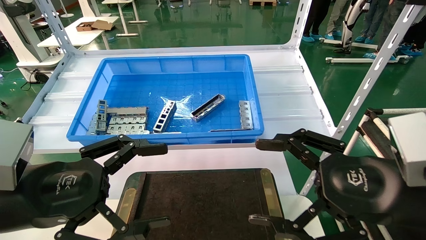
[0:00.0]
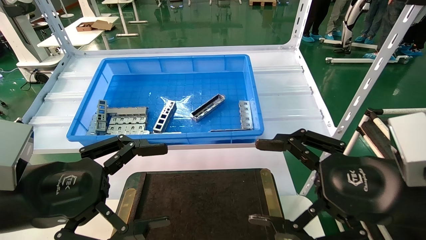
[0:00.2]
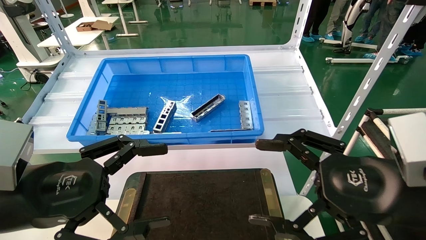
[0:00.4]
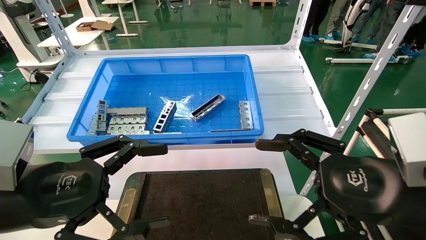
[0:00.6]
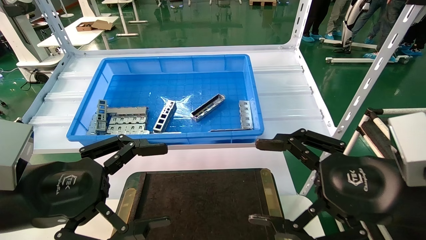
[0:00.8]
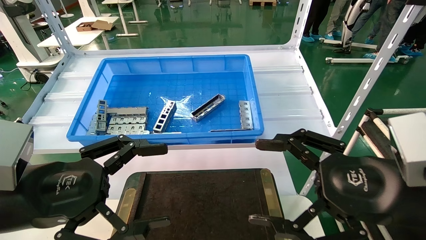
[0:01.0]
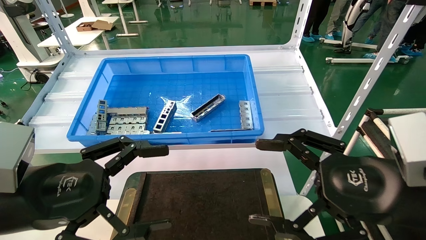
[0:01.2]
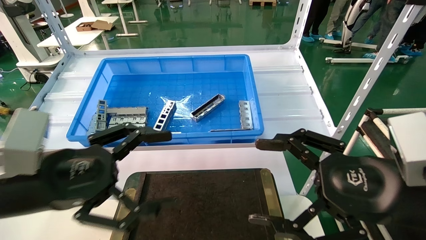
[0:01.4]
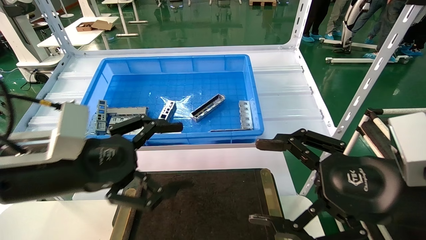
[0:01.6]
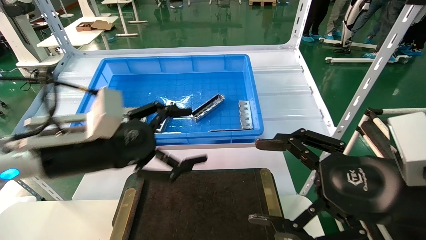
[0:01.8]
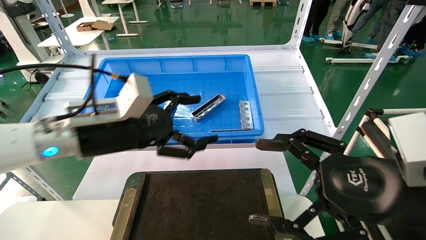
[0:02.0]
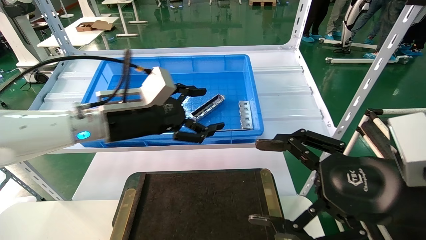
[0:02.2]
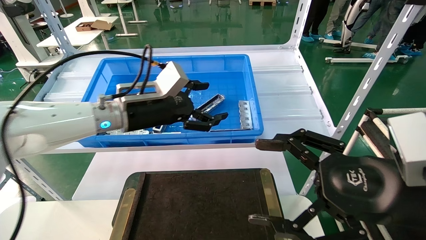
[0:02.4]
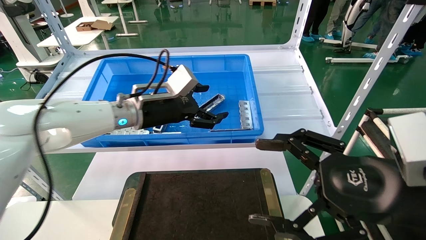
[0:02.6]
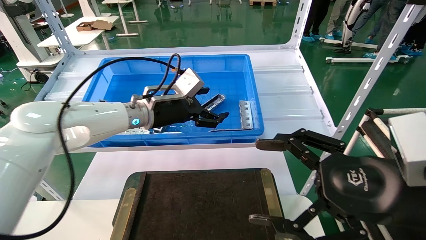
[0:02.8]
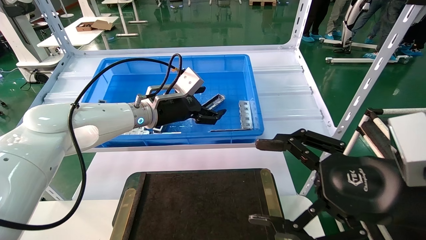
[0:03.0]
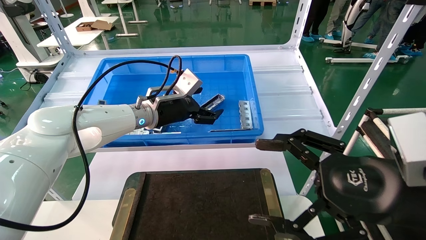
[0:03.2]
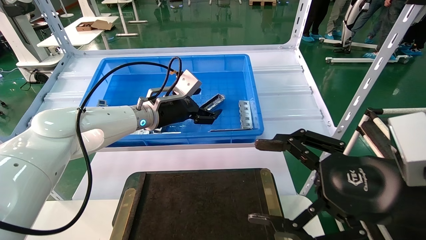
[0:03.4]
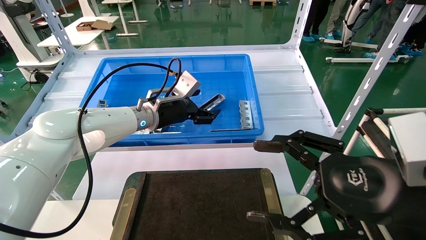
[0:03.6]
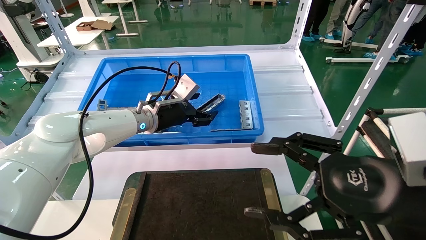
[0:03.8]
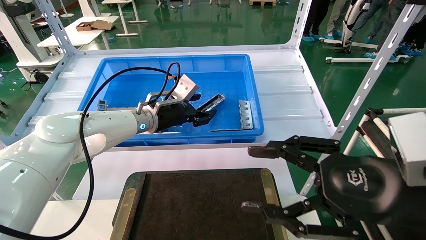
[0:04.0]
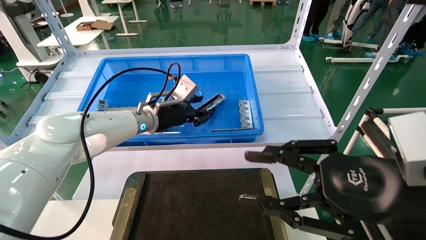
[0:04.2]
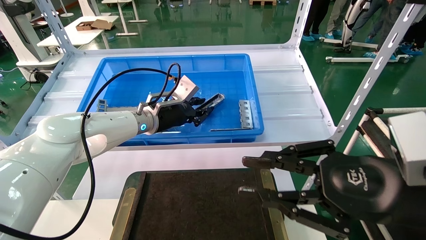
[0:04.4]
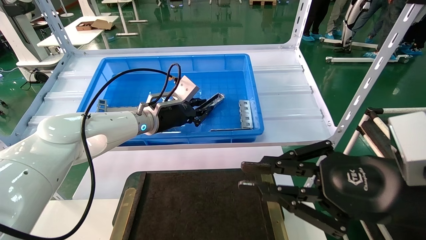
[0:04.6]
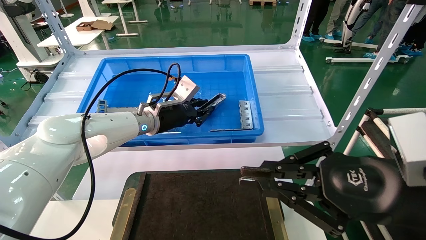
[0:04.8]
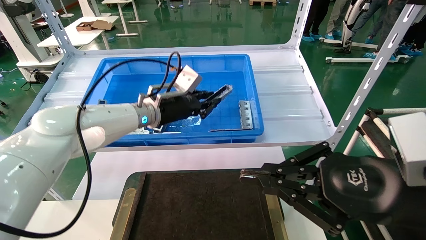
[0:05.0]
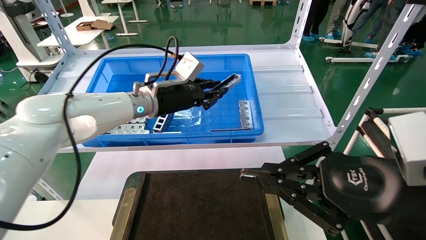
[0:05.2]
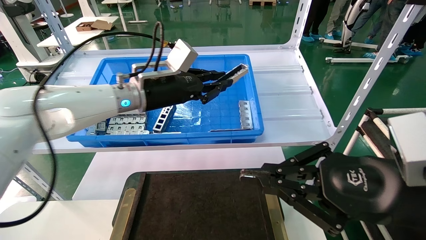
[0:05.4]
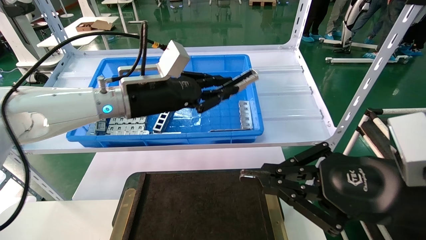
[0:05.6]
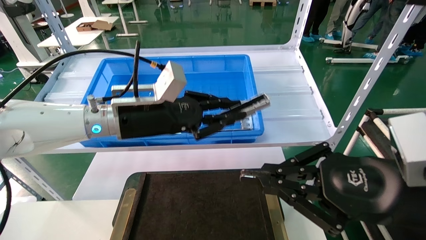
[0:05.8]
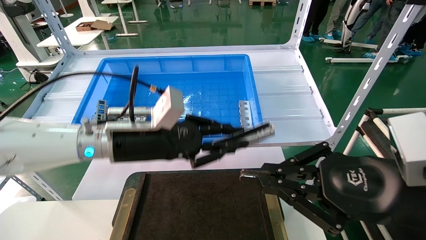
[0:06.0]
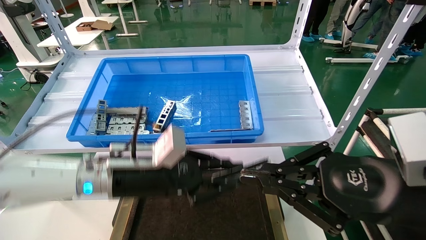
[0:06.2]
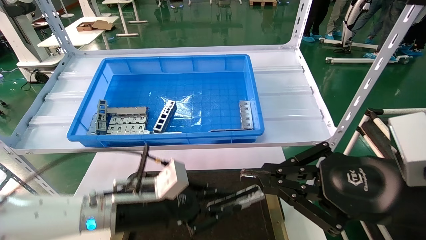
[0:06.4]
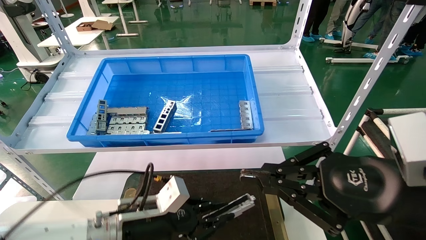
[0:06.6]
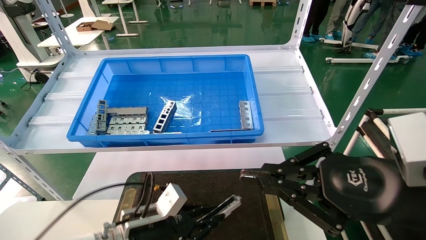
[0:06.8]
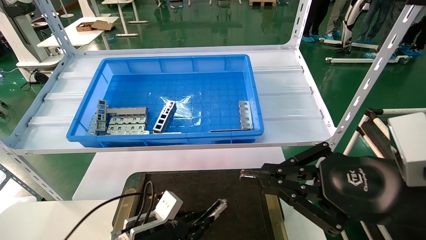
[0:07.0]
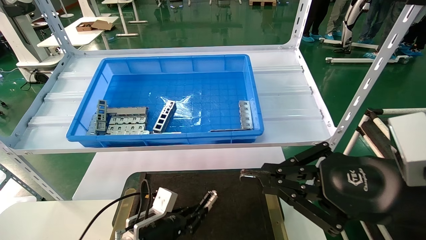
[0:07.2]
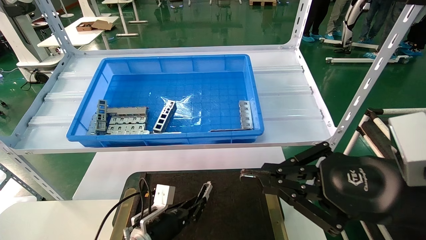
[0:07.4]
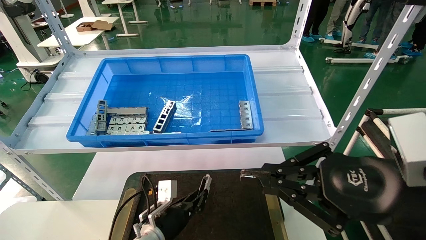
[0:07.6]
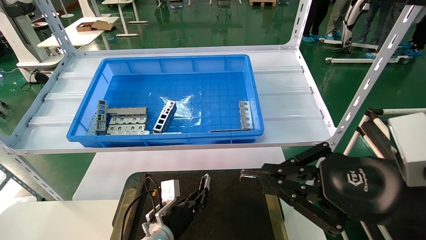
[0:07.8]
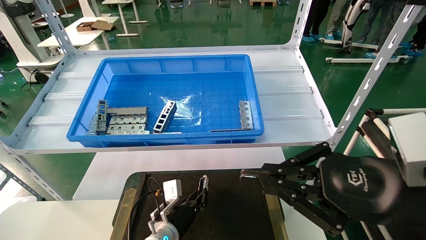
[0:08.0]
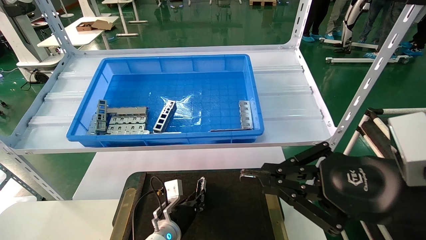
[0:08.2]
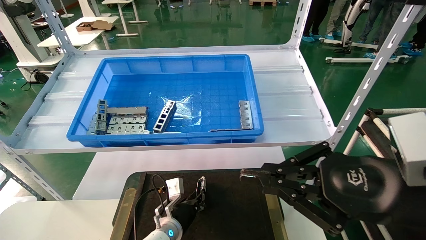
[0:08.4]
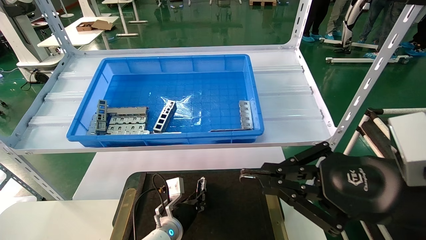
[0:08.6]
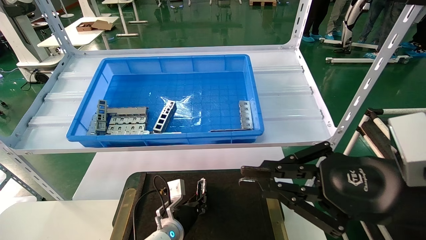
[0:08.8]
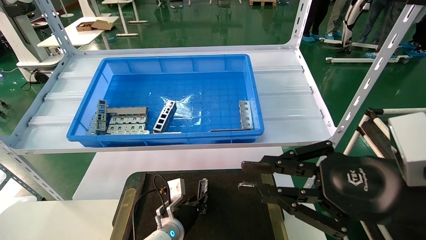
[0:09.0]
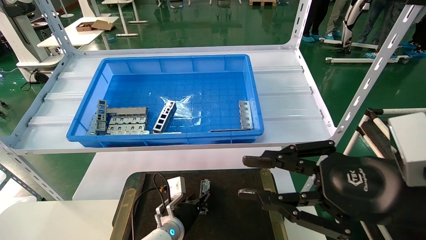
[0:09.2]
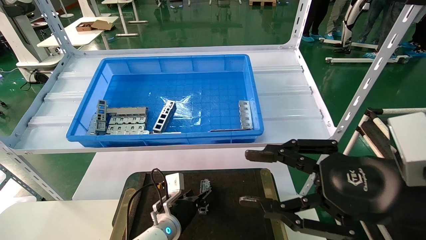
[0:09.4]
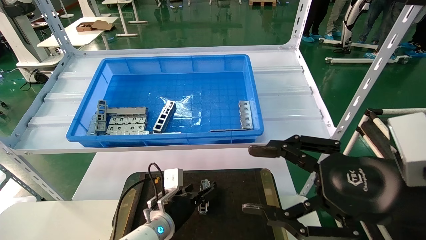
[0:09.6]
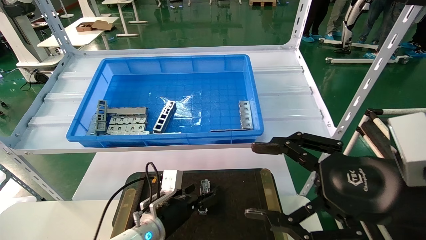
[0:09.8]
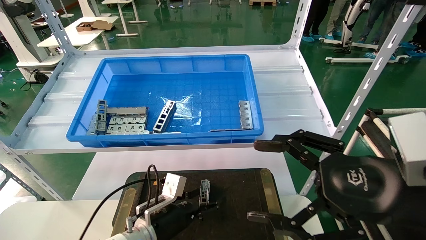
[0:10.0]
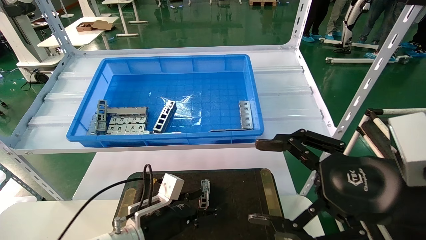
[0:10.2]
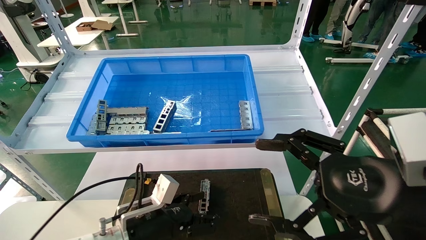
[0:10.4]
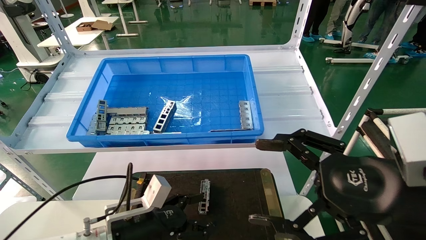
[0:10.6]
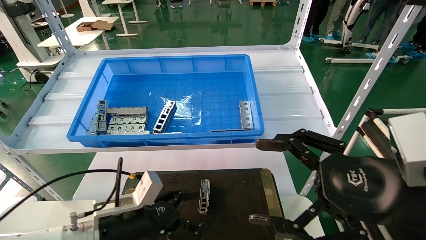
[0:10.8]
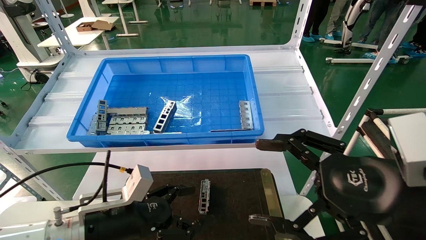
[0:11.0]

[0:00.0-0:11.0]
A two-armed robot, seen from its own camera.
Task of the whole recording: Grasp the part with one hand and place it on the black container.
Step, 1.6 to 5.0 s: Pick up the front USB bracket from the feeding area.
Step, 5.2 to 9.6 s: Place the front USB bracket into the box.
0.0 to 1.6 s: The left gripper travels forward by roughly 5 cm.
1.6 to 3.2 s: The left gripper goes roughly 25 cm forward and to the right.
3.2 to 4.8 s: The right gripper closes. The left gripper closes up.
4.8 to 6.2 s: The left gripper travels backward and downward by roughly 15 cm.
6.2 to 7.8 s: The left gripper is displaced downward by about 20 cm.
7.8 to 9.4 s: The left gripper opens up. The right gripper opens up.
9.4 to 11.0 s: The right gripper opens its fingers. The left gripper shifts some 20 cm backward, upward and to the left, and opens up.

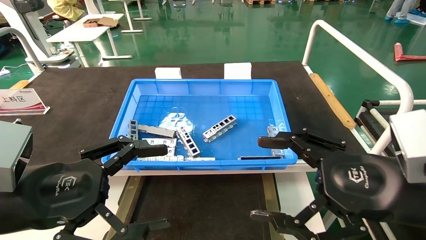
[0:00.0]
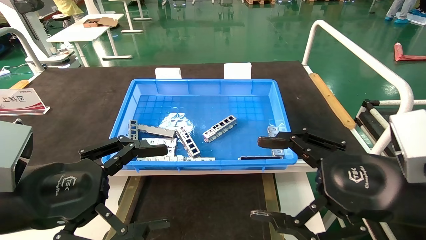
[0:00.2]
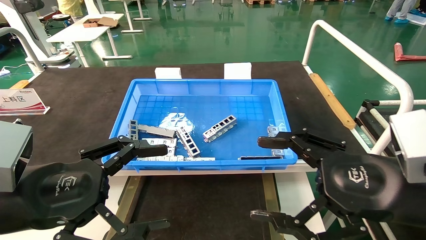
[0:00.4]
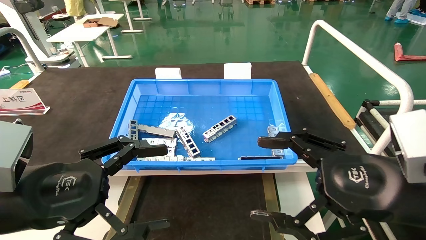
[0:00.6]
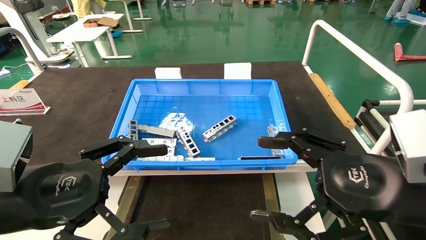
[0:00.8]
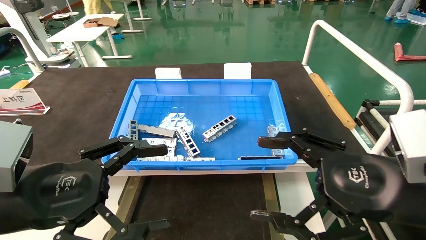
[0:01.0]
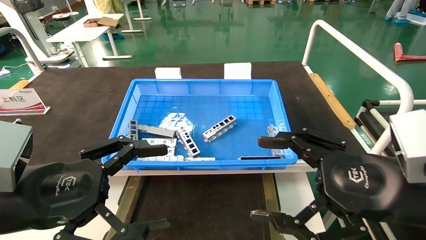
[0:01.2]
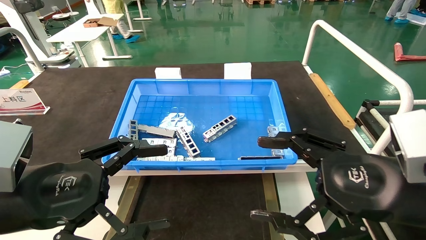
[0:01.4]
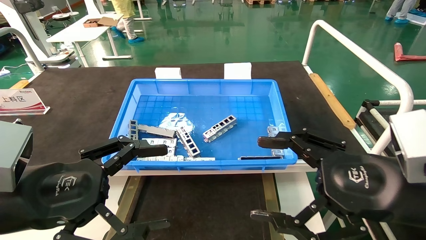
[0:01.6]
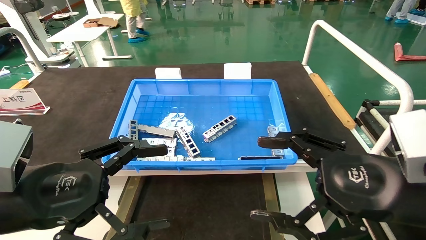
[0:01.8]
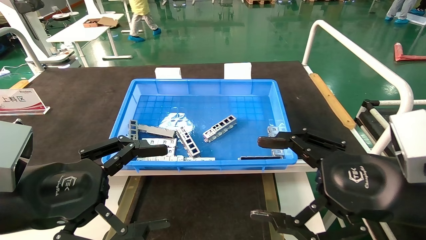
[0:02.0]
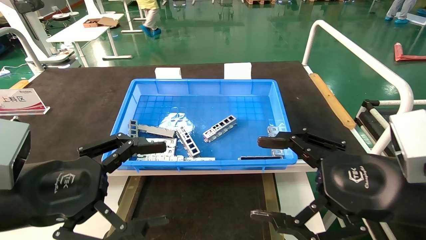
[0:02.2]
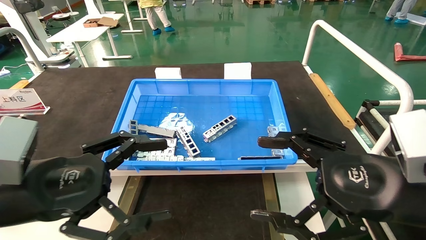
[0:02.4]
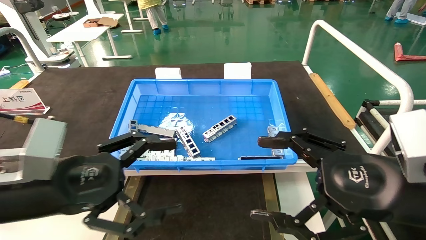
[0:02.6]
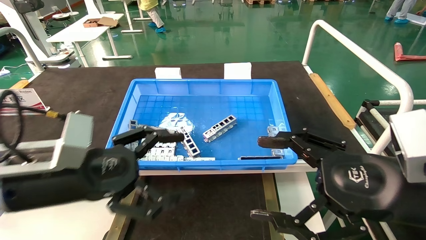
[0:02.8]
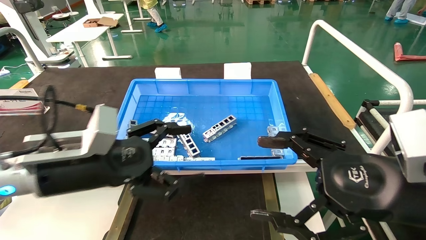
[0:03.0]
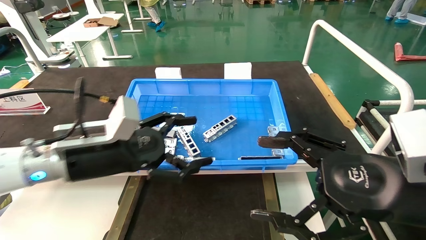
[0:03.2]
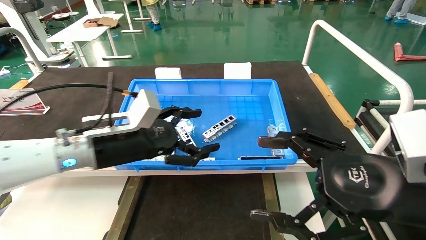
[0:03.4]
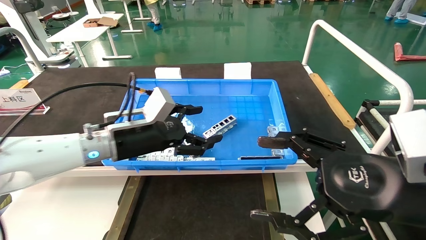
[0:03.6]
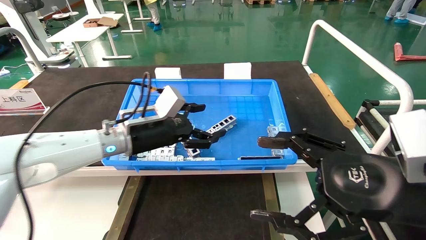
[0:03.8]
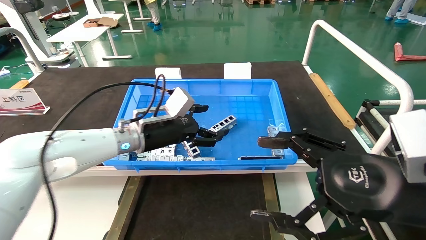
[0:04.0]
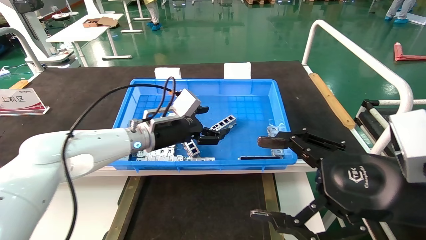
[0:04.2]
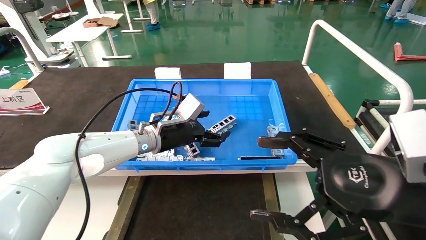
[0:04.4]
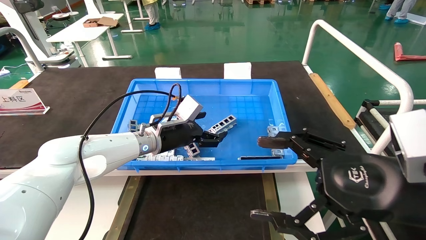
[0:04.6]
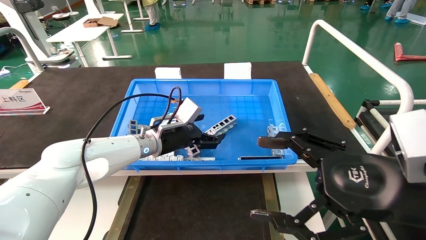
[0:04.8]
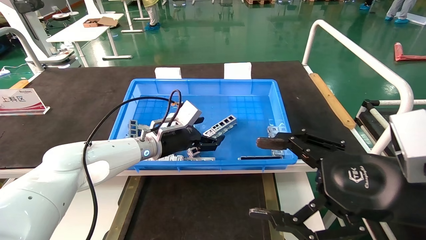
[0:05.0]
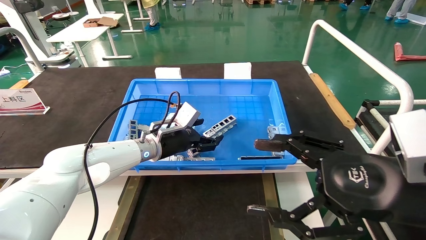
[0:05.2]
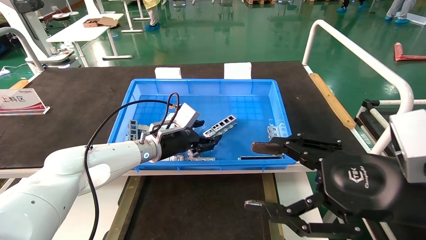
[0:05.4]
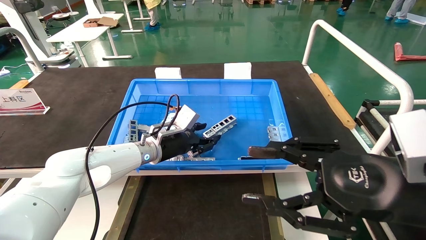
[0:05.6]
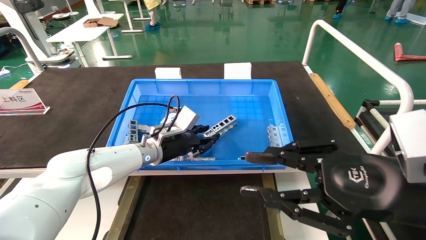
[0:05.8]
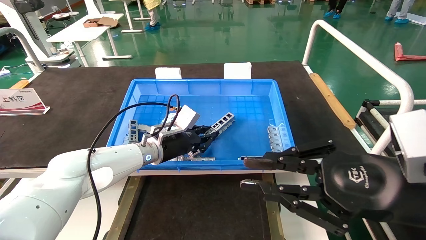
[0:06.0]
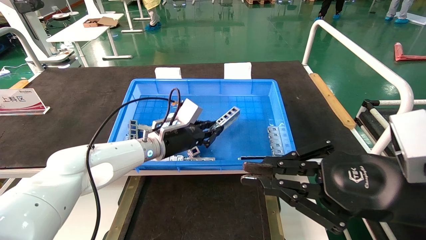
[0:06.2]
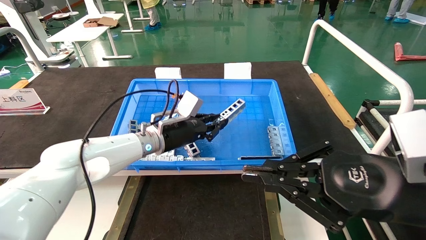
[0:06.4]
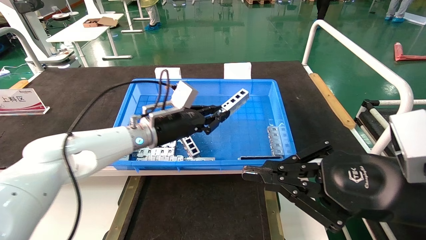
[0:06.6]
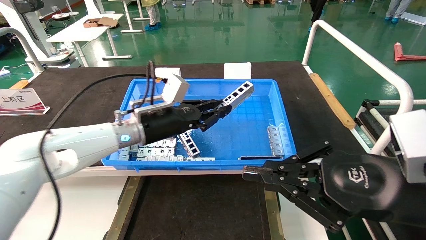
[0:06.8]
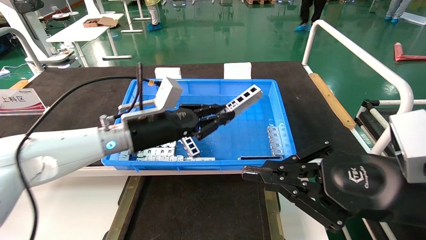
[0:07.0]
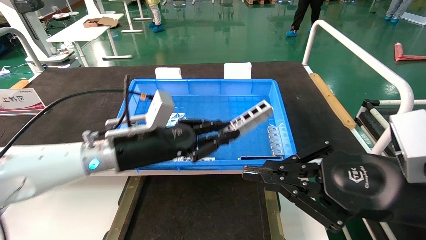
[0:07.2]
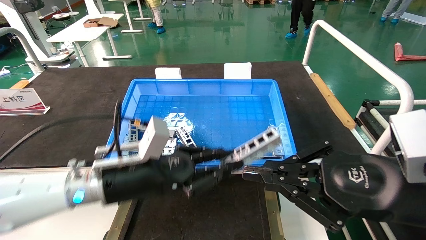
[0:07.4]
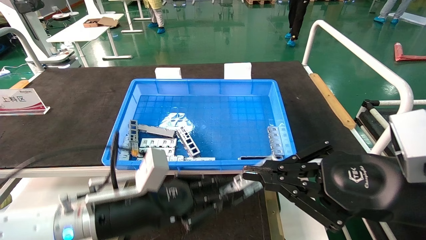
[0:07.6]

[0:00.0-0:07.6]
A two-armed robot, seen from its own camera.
Task of the whole recording: Grasp the part with one hand and place it on the black container.
Step, 2.4 to 6.6 s: Pick up the front USB bracket from the feeding area.
0.0 to 1.6 s: Both grippers stay about where they are.
1.6 to 3.0 s: The left gripper goes some 10 cm forward.
3.0 to 4.6 s: The left gripper shifts roughly 20 cm forward and to the right.
4.6 to 6.0 s: The left gripper closes up, while the right gripper closes.
6.0 to 7.6 s: The left gripper is displaced backward by roughly 20 cm.
